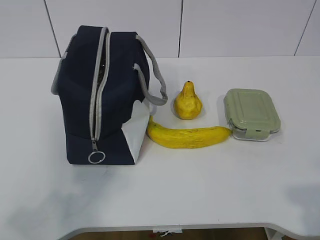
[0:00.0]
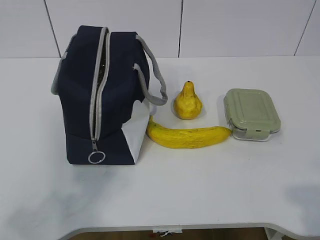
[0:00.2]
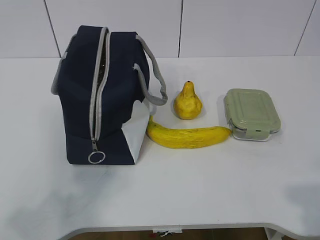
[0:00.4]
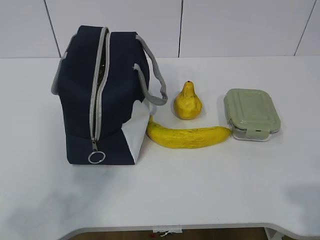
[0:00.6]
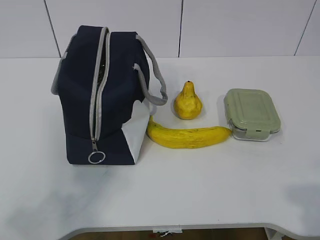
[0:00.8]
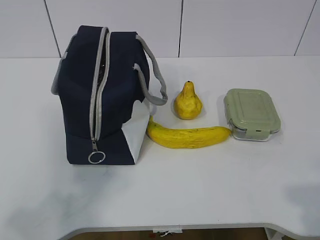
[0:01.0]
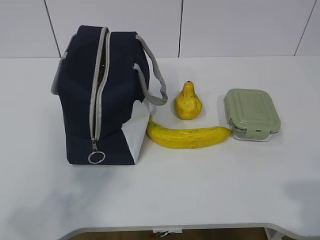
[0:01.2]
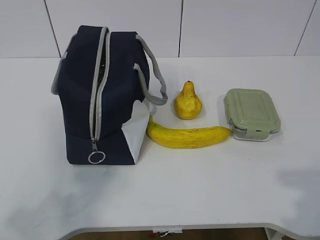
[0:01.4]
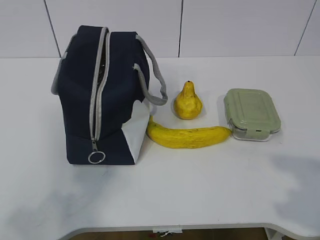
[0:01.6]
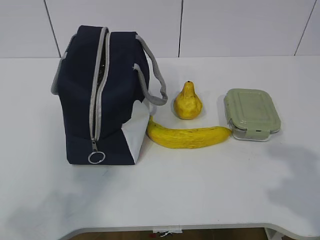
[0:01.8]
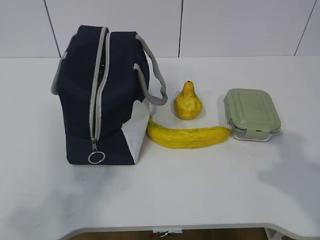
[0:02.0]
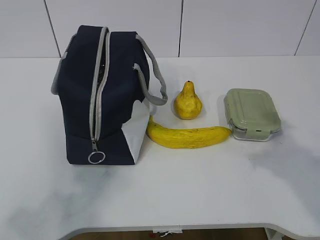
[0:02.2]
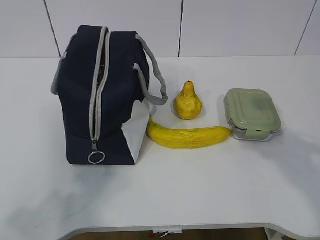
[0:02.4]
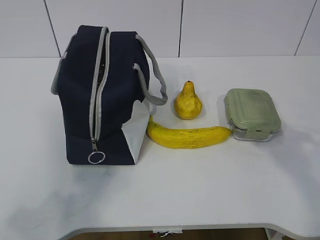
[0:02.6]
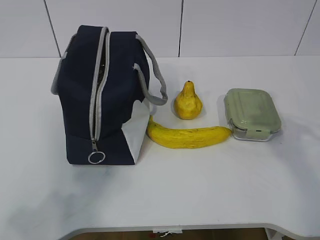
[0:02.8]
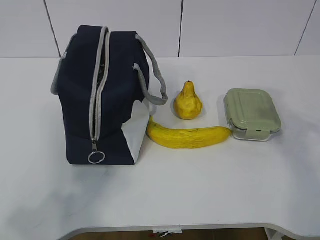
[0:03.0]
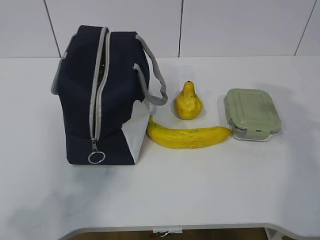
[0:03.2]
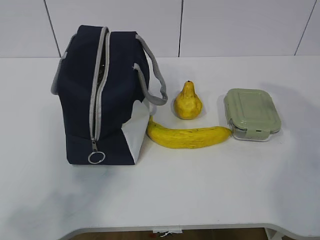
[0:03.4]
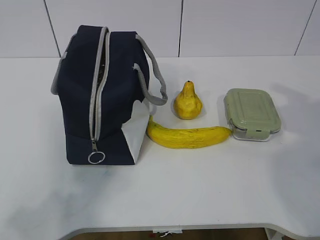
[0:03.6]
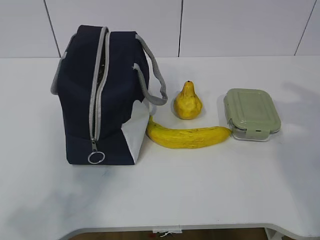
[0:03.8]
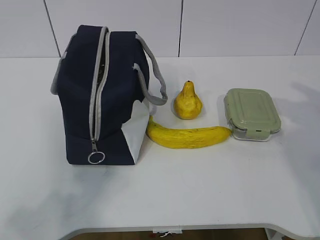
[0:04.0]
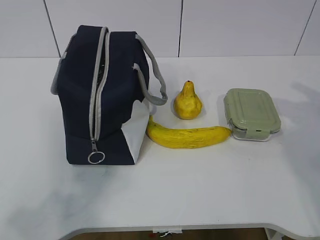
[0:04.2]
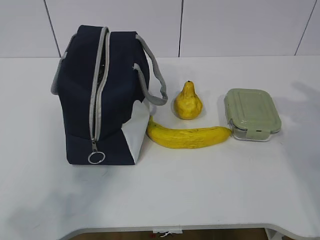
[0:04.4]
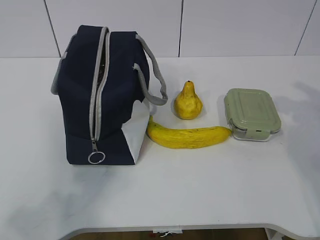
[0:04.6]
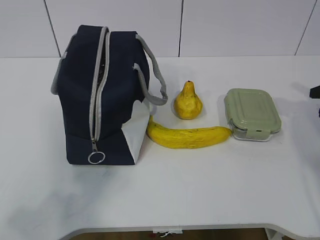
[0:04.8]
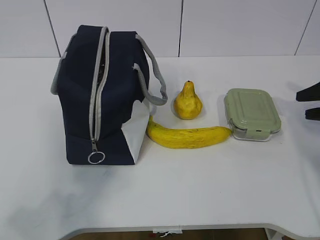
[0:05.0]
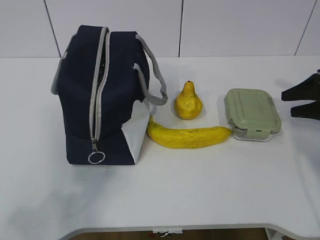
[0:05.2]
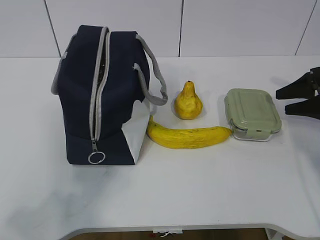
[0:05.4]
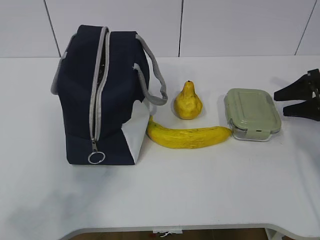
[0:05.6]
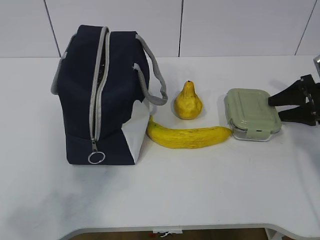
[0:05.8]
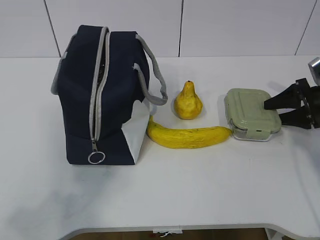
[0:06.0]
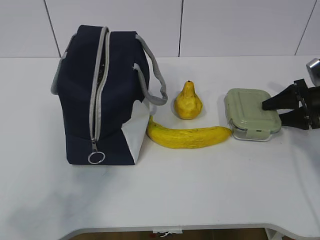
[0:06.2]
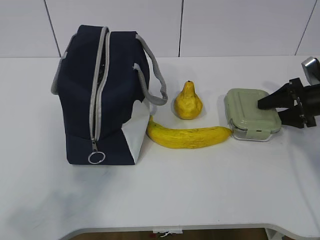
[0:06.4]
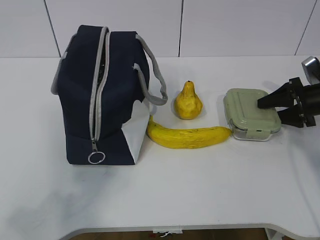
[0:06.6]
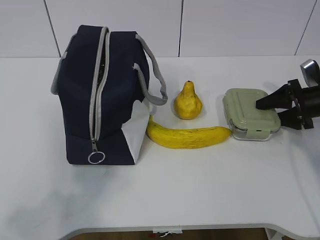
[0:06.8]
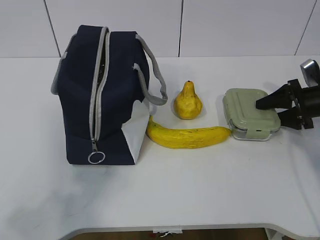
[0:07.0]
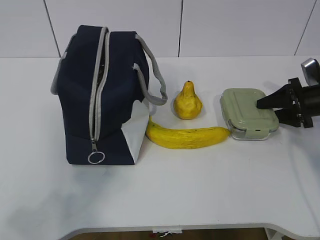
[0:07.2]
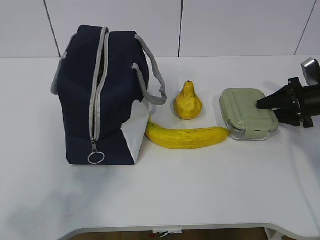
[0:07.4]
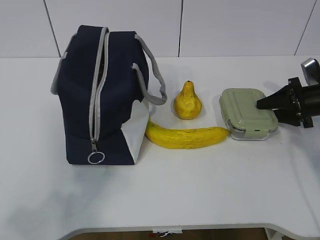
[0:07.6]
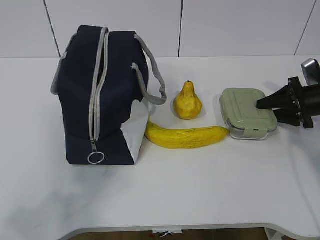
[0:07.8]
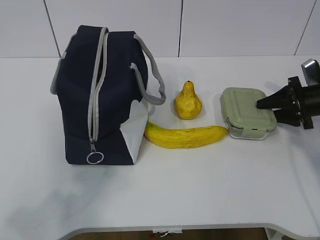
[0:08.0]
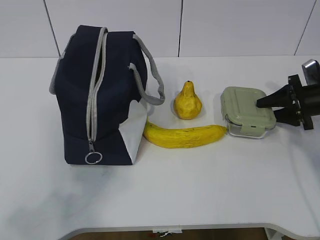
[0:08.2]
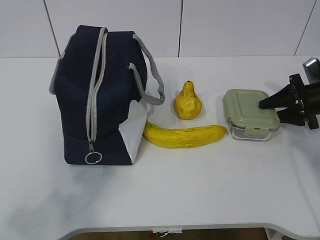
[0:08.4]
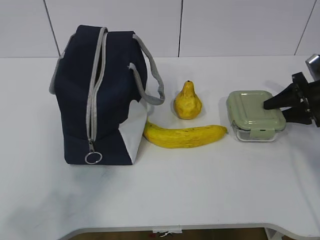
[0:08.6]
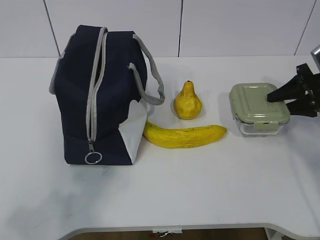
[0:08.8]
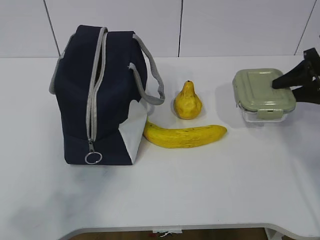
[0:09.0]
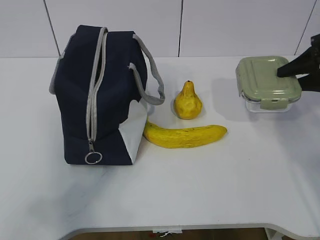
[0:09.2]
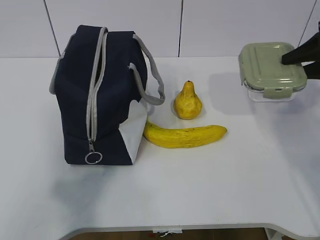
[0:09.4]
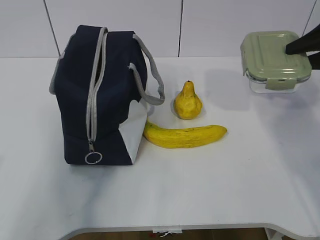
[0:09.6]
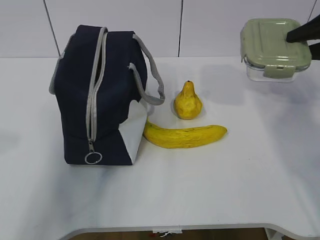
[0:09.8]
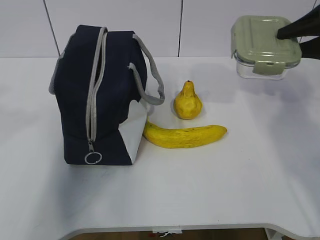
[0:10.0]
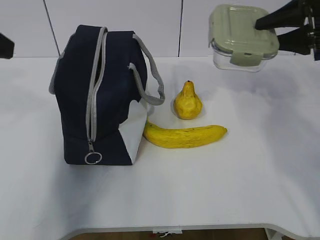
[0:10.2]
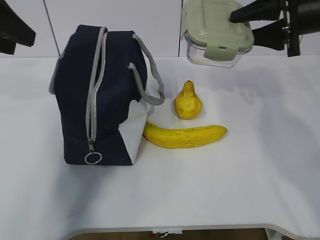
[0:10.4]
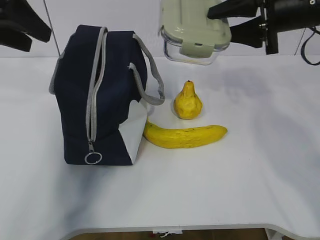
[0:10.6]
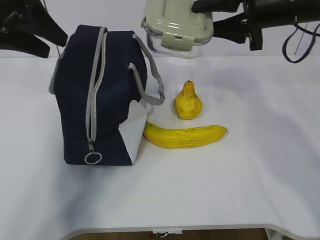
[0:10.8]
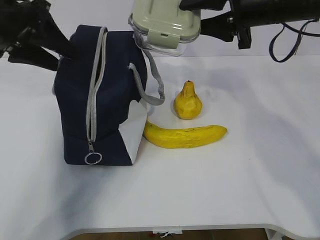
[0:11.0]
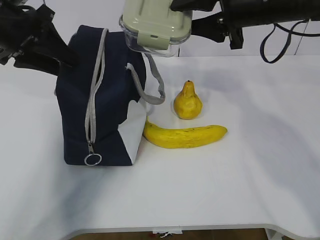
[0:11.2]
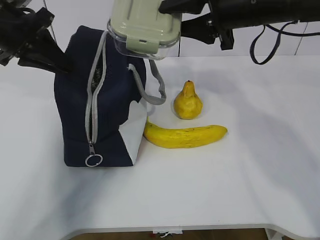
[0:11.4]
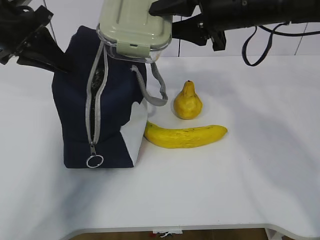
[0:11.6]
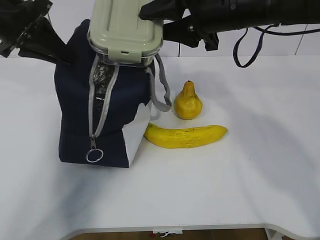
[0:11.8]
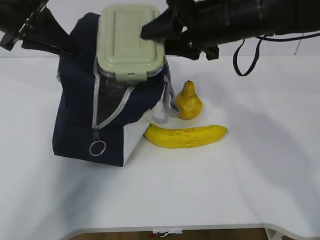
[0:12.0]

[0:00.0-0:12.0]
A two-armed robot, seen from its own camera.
Step, 0:00.0 to 0:06.8: Grab the lunch box with your right hand.
Step, 0:07.0 to 0:09.6: Grab the lunch bag with your left hand.
0:04.4 to 0:06.0: The right gripper travels forward and downward by about 15 cm.
0:06.0 to 0:07.6: The grippers move only a little.
0:07.6 to 0:09.0: The right gripper heads upward, covering approximately 10 cm.
0:09.0 to 0:10.4: The right gripper shifts approximately 15 cm upward and to the left, while the left gripper moves forward, some 30 cm.
0:10.4 to 0:12.0: The left gripper goes about 10 cm forward, and closes. Meanwhile the right gripper heads to the left, covering some 15 cm.

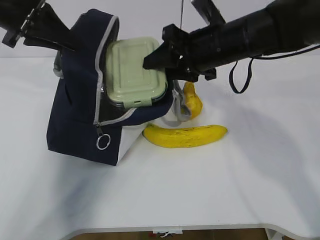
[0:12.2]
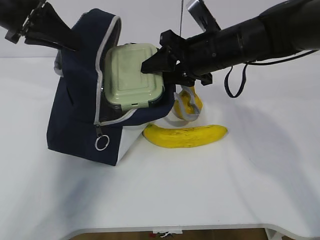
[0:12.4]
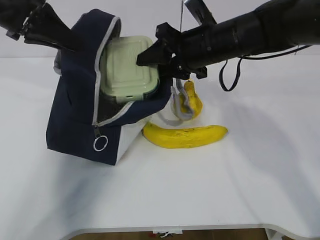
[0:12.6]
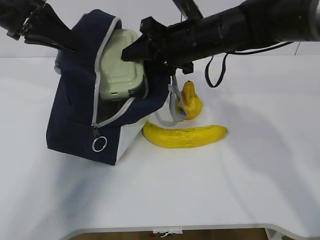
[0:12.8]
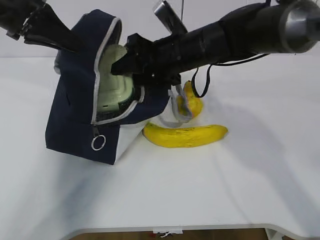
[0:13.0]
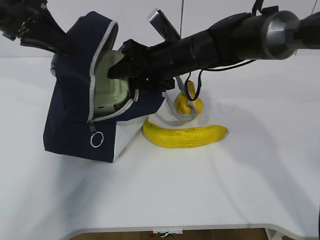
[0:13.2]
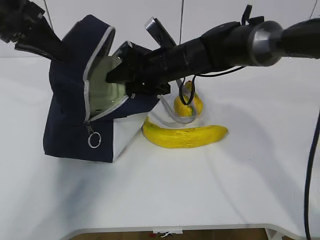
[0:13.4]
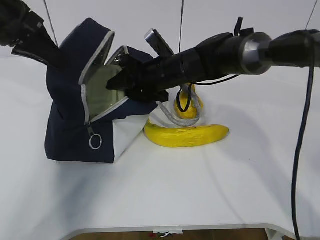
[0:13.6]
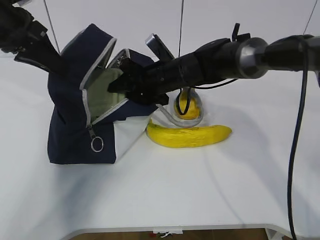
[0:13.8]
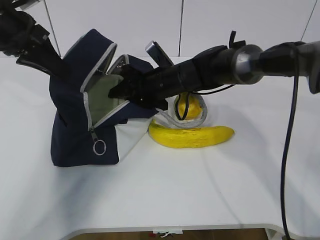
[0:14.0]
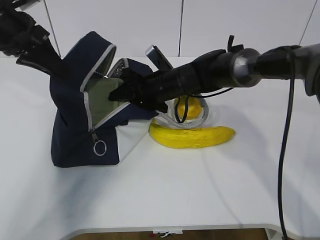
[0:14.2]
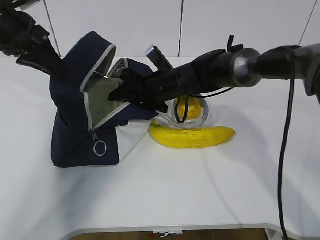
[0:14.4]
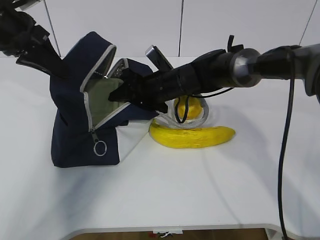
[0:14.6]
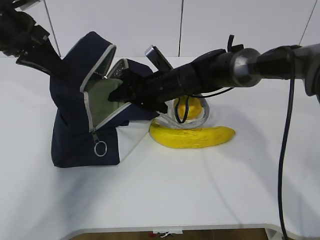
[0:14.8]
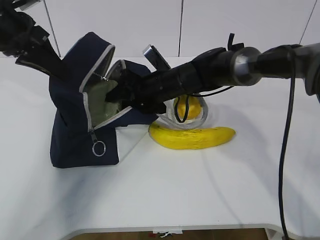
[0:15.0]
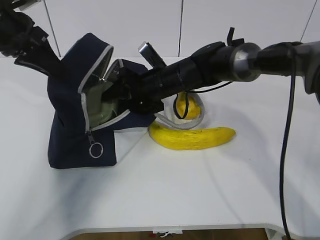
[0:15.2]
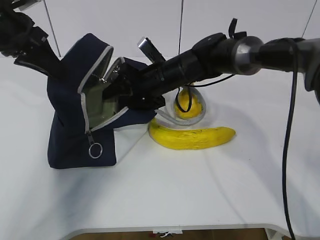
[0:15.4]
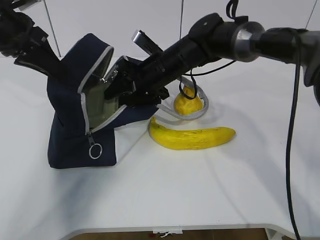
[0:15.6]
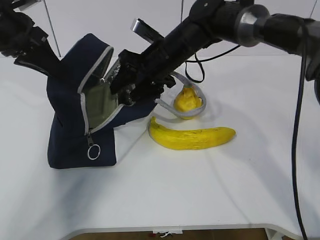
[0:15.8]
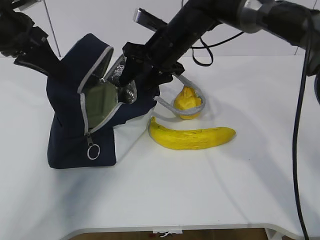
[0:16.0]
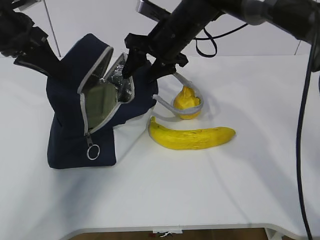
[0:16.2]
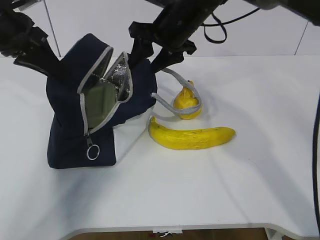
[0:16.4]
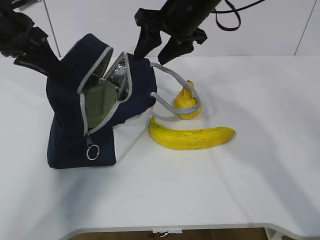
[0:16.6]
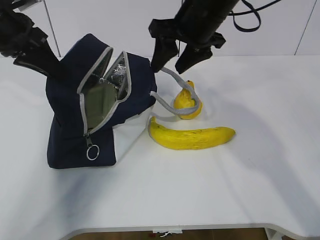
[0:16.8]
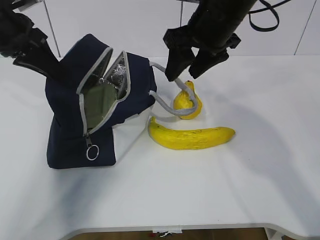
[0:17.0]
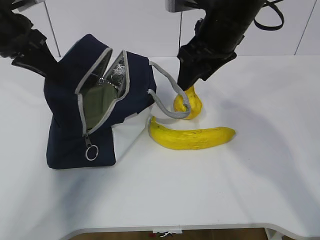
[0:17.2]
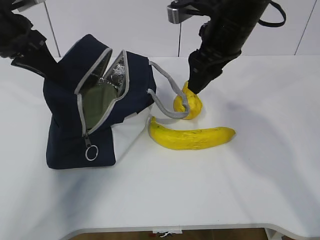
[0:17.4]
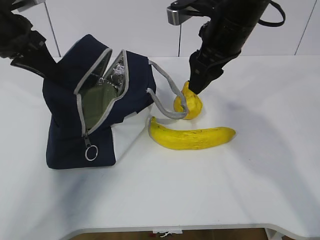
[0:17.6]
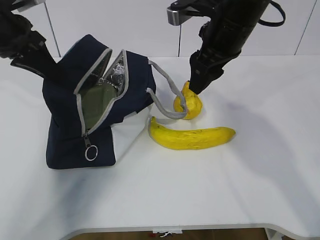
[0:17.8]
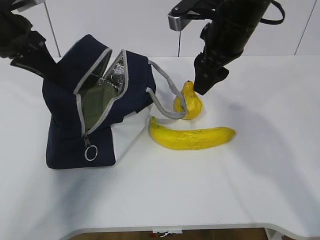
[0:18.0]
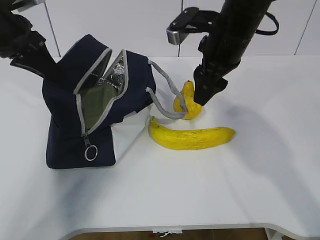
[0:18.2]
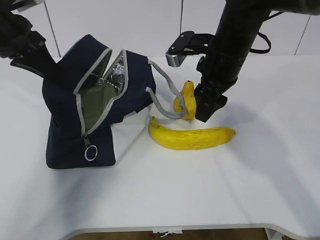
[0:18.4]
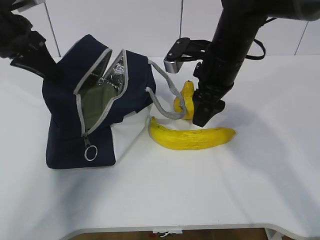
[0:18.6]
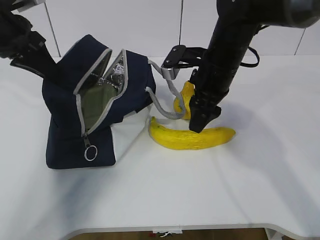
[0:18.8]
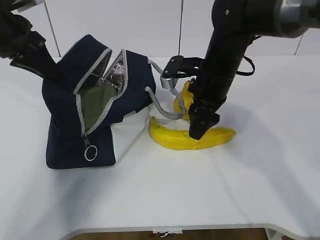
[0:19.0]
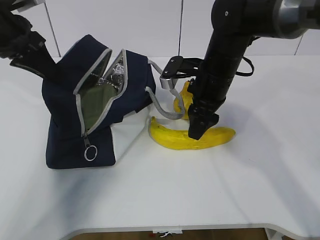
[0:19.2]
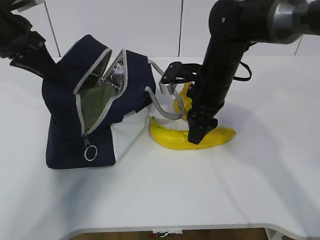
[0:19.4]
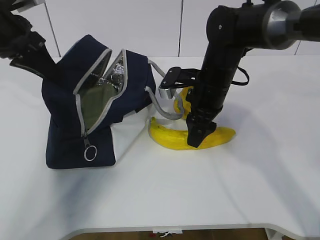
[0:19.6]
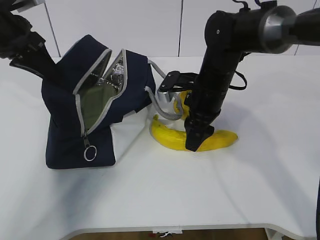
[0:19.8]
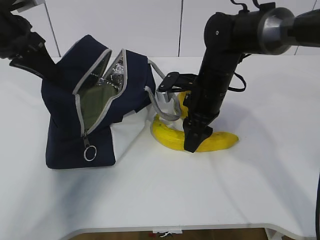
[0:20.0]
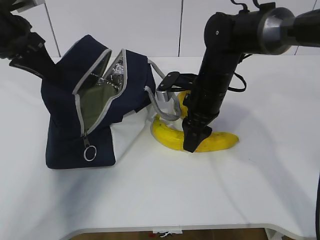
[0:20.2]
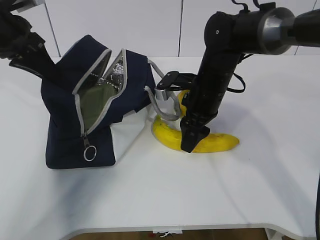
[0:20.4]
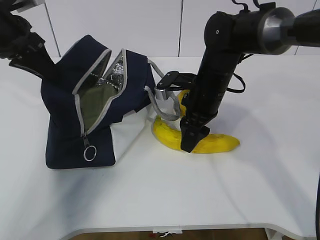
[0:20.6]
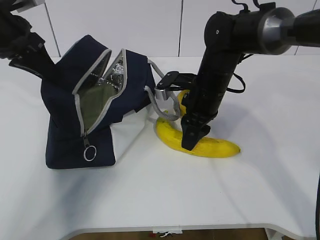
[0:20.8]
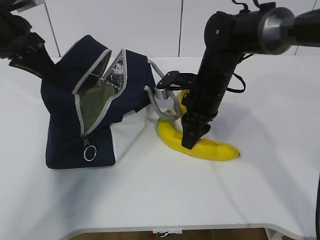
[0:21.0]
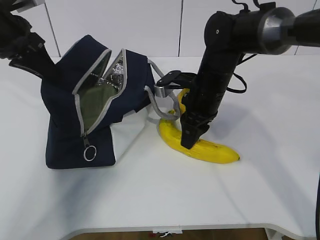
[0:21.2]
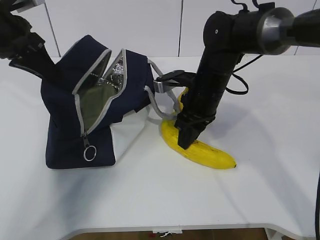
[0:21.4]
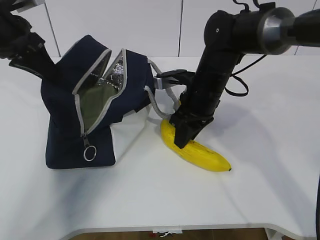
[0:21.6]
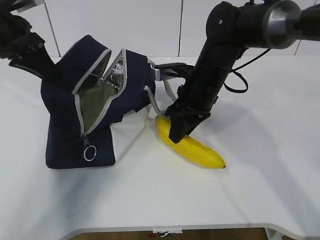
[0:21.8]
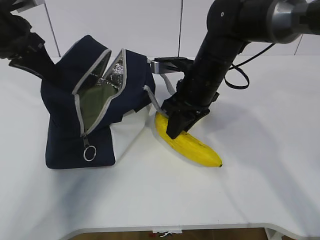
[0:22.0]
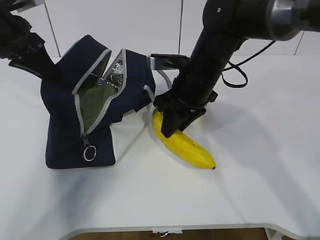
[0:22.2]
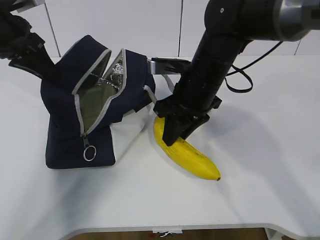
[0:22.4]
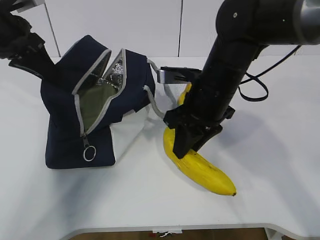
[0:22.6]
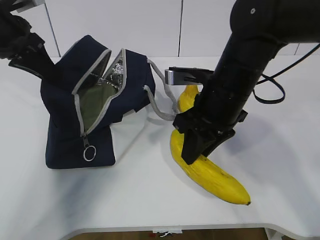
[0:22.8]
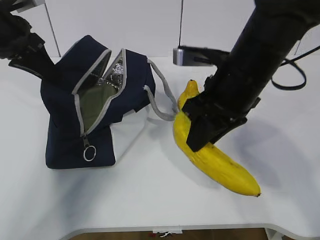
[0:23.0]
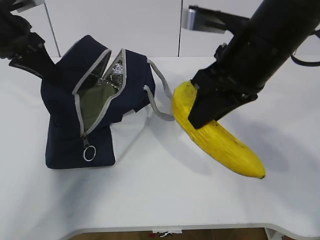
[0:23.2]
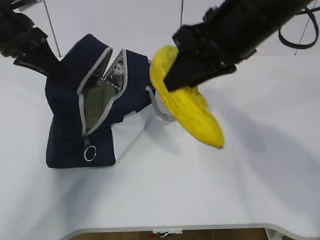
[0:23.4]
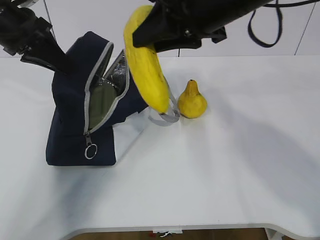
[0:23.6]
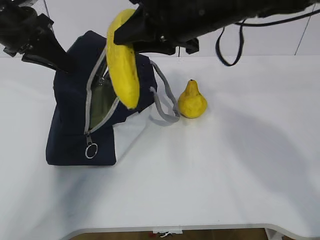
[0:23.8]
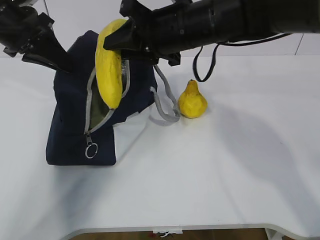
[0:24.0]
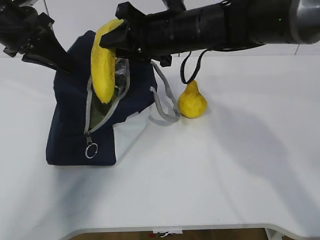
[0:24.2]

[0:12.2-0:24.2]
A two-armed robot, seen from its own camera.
Step, 0:13.0 to 0:17.8: Grab the banana with your right hand.
Step, 0:18.0 to 0:21.4: Place it into the bag with your right hand.
0:12.2 to 0:13.8: The right gripper shifts roughly 15 cm downward, to the left and forward.
0:13.8 to 0:15.2: The grippers stay close to where they were, moving slightly.
0:15.2 to 0:16.6: The right gripper is displaced upward by some 15 cm.
0:16.6 to 0:18.2: The right gripper changes place by some 5 cm.
0:18.2 to 0:19.8: The right gripper heads downward, covering approximately 10 cm.
0:19.8 to 0:21.2: The right gripper closes up.
0:21.2 to 0:22.6: The right gripper travels backward by roughly 5 cm.
0:22.6 to 0:24.2: The right gripper shifts about 5 cm upward.
